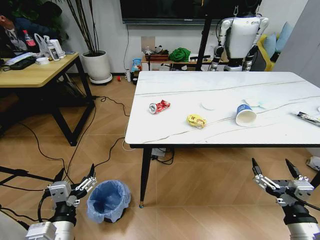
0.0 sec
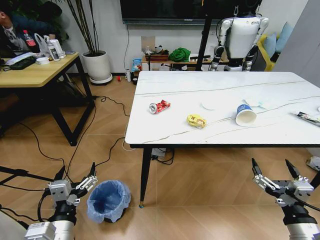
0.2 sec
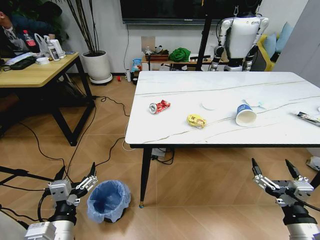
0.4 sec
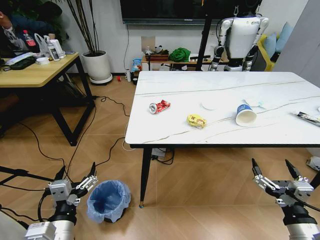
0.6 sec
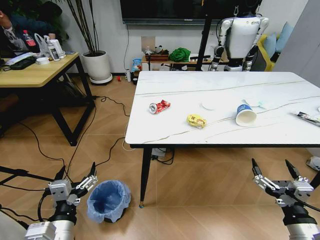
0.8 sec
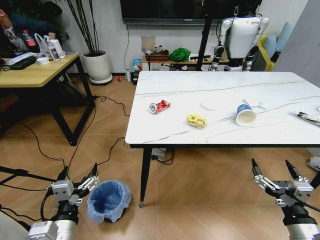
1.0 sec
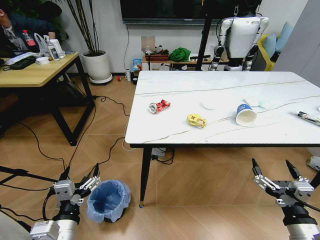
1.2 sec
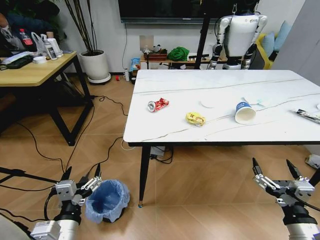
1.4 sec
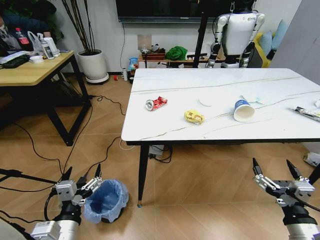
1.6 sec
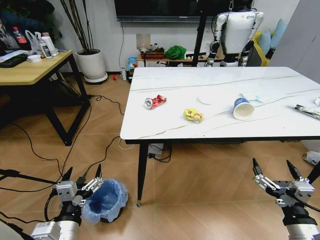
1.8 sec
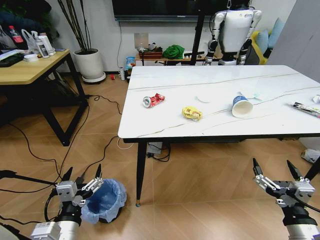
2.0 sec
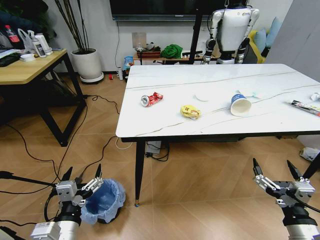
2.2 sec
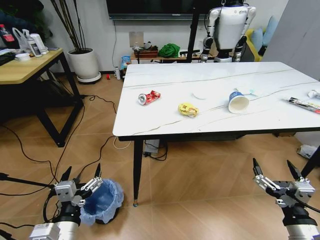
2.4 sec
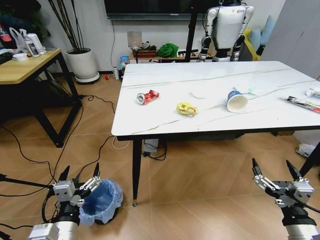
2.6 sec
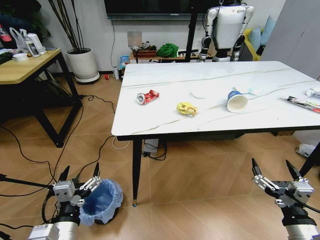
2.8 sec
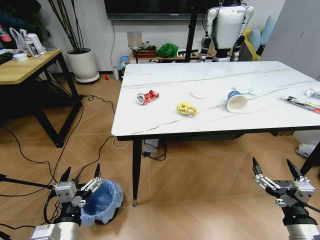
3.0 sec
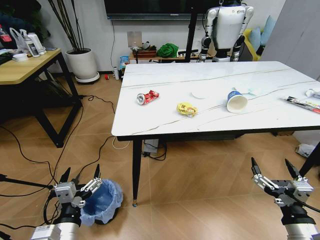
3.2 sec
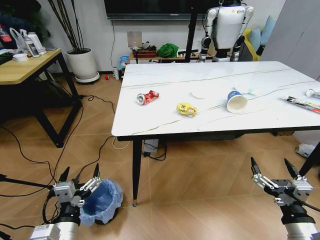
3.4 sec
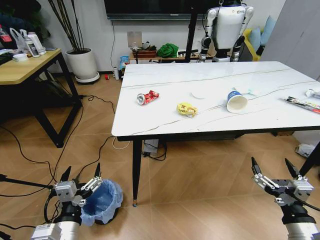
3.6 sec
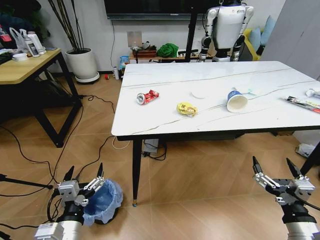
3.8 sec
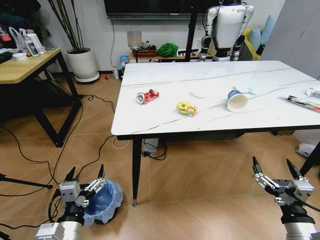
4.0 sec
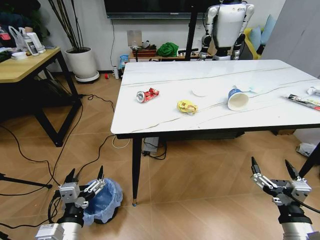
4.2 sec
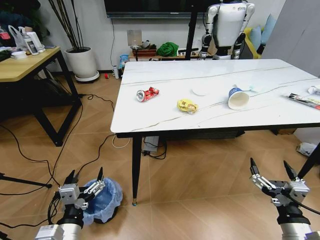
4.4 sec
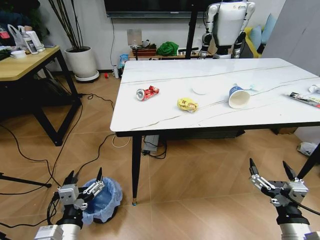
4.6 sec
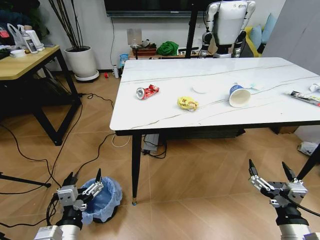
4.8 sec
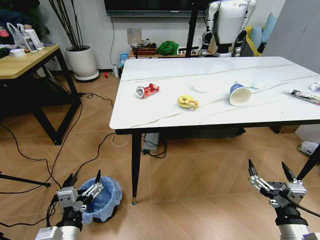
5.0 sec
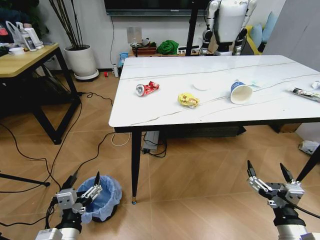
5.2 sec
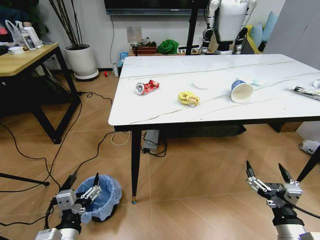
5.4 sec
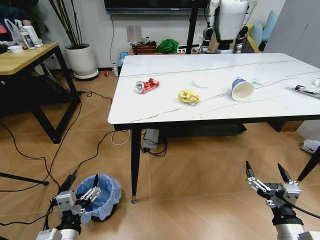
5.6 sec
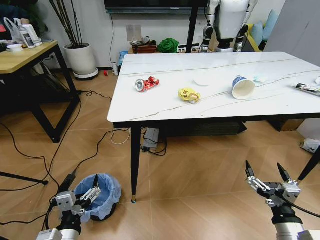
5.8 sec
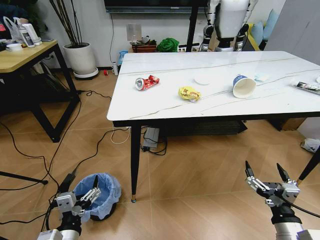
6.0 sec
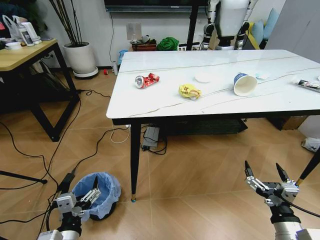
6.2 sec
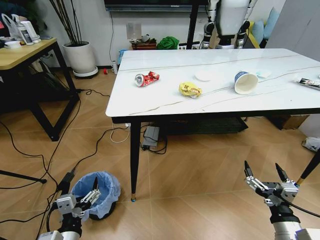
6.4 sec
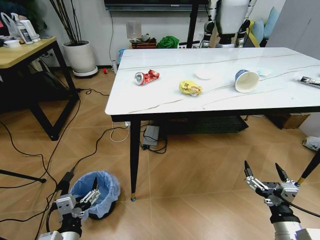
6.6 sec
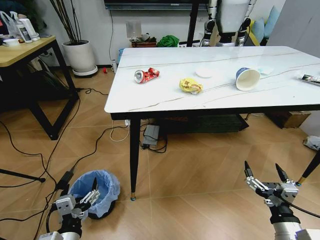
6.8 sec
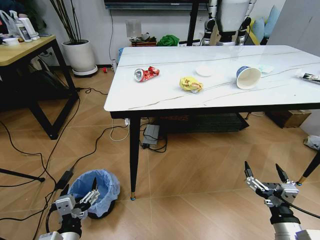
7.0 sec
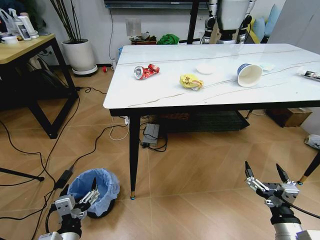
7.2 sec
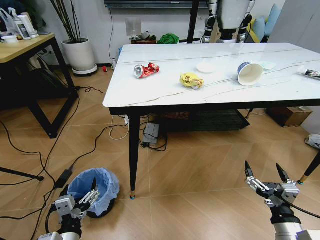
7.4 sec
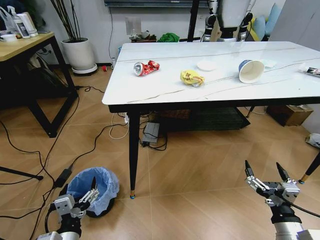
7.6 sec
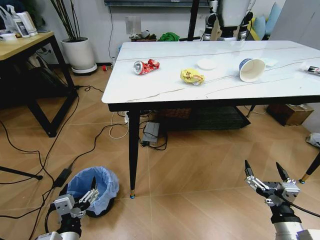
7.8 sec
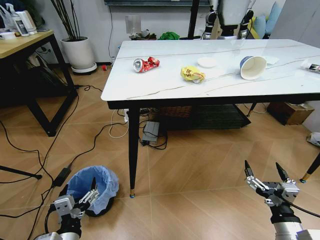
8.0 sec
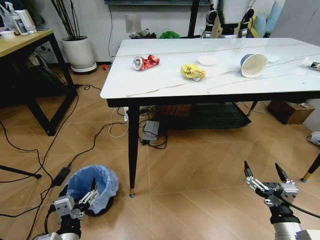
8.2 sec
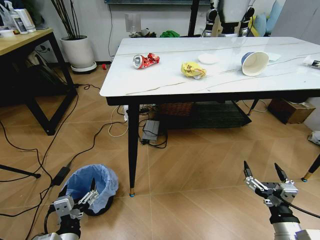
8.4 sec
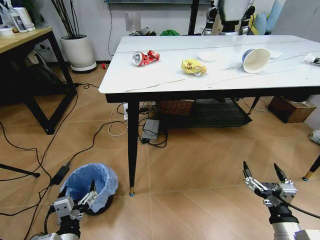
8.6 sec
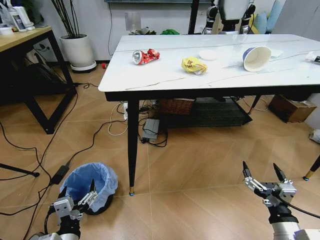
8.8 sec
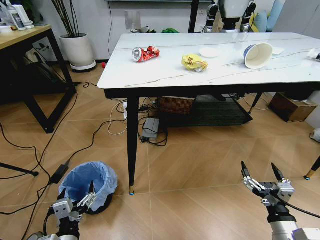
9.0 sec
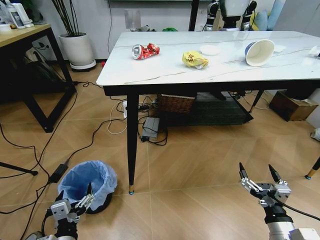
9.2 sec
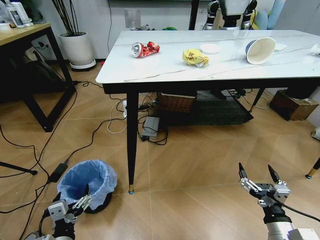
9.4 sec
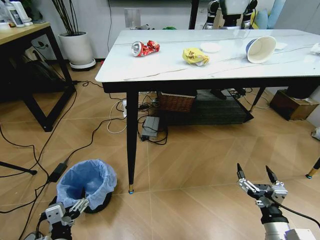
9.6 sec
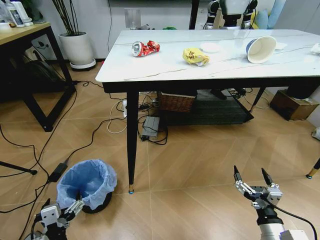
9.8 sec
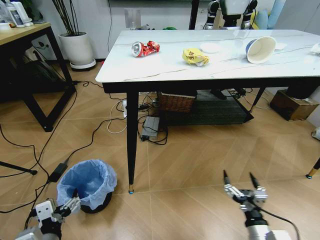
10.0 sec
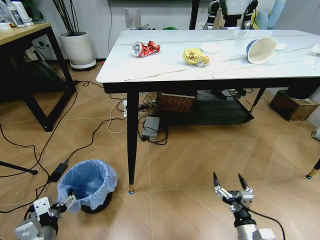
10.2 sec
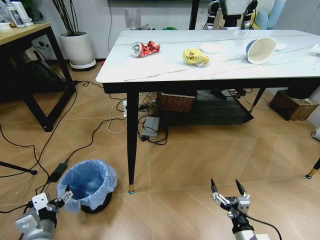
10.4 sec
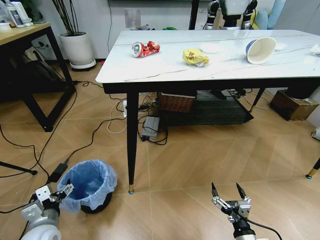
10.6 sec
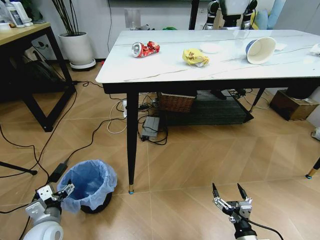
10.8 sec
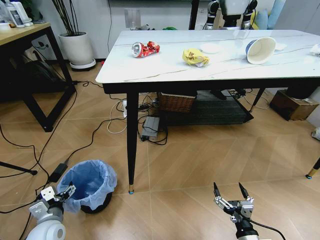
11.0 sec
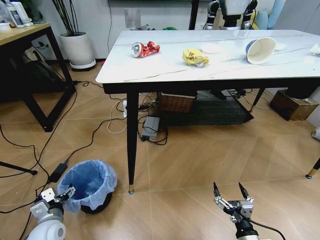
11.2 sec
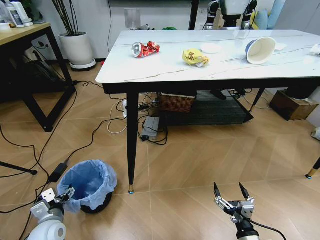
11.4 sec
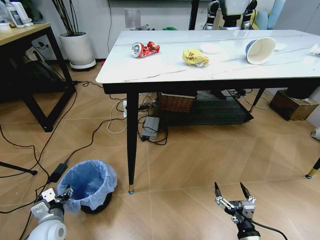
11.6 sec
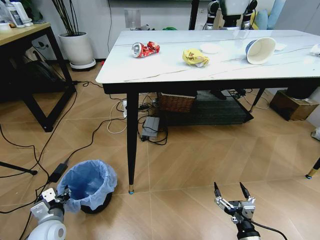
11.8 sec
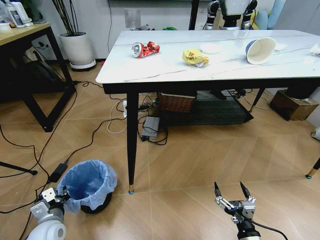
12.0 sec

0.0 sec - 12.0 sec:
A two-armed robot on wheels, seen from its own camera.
Task of the whole recording: Pick up the trash bin and place the trash from the table into it.
3.0 sec - 4.4 sec: Both grippers stay about where they are.
9.0 sec - 10.4 sec: The right gripper goes about 10 cm downward and to the left; the left gripper moves to the left, approximately 5 cm.
10.4 sec - 12.0 sec: The left gripper heads forward and downward, covering roughly 10 cm, and closes up.

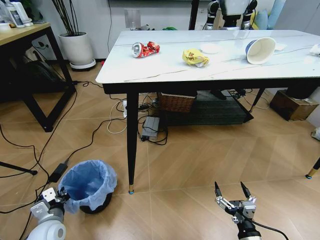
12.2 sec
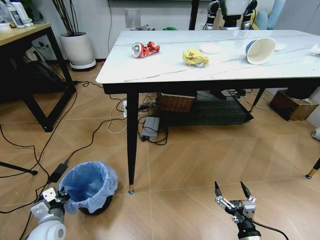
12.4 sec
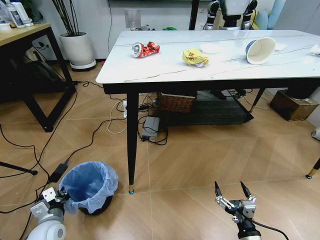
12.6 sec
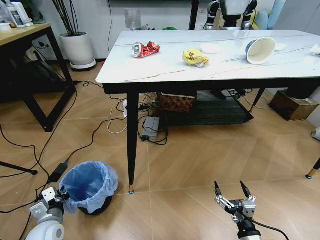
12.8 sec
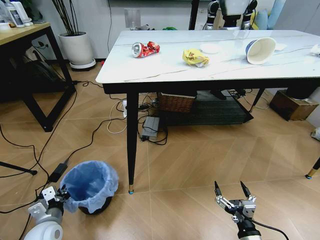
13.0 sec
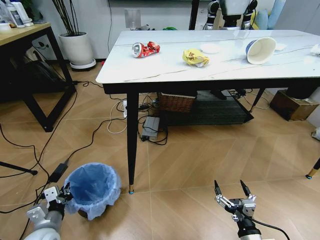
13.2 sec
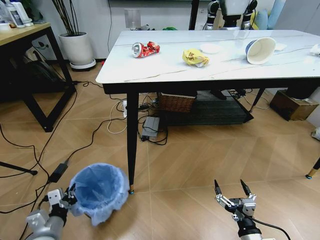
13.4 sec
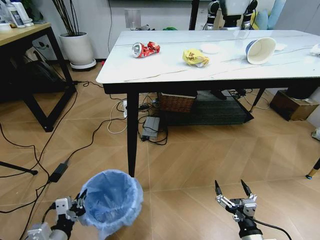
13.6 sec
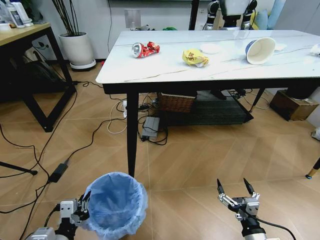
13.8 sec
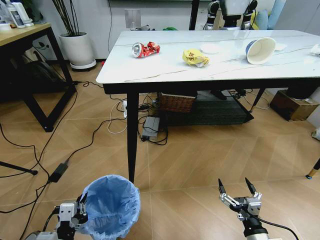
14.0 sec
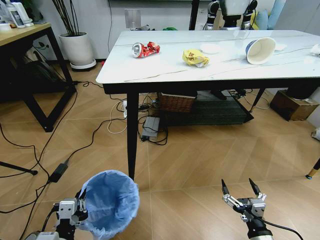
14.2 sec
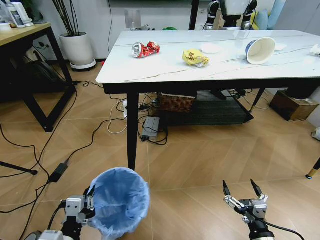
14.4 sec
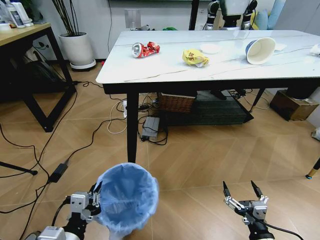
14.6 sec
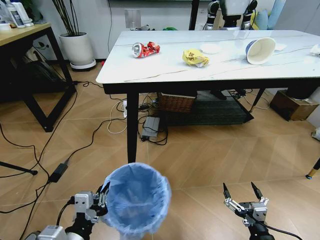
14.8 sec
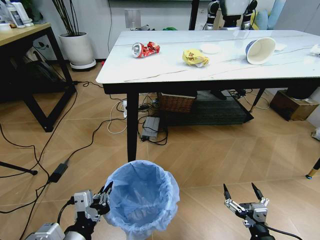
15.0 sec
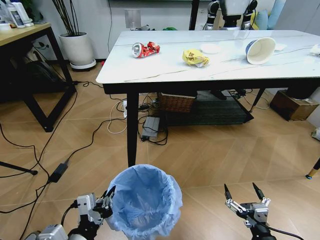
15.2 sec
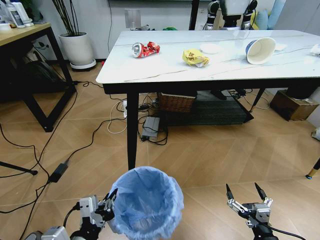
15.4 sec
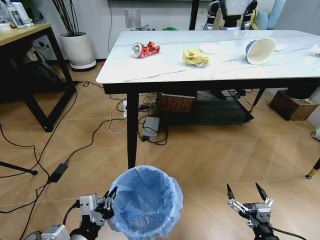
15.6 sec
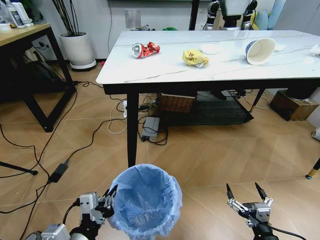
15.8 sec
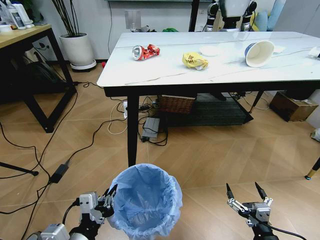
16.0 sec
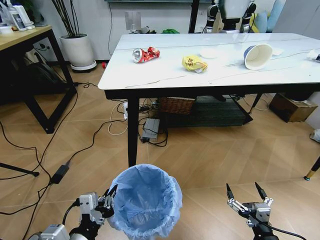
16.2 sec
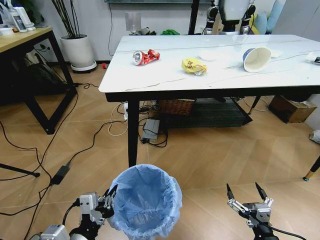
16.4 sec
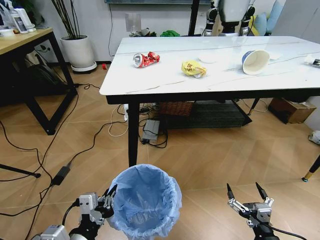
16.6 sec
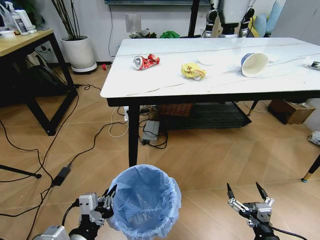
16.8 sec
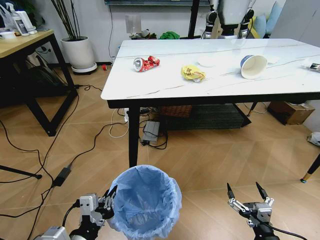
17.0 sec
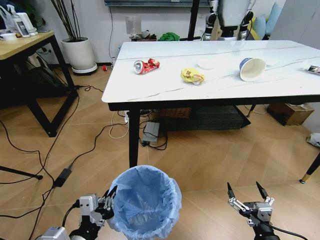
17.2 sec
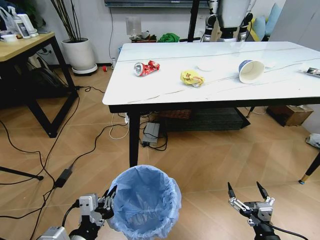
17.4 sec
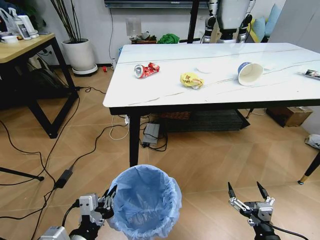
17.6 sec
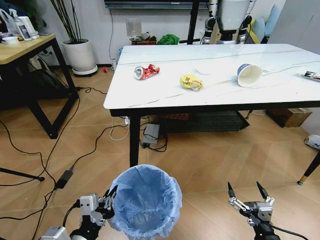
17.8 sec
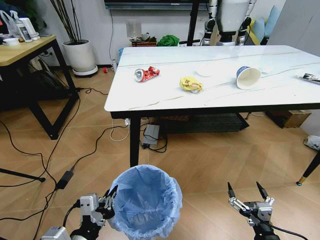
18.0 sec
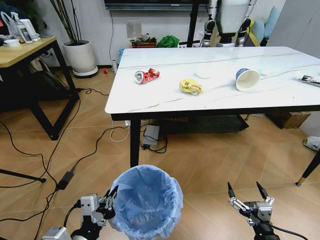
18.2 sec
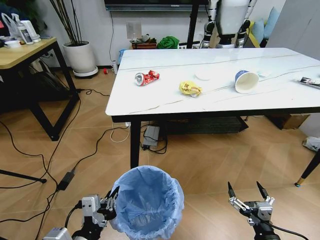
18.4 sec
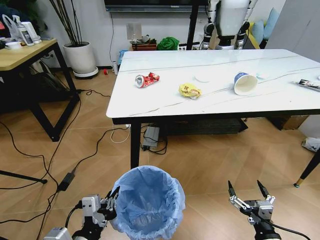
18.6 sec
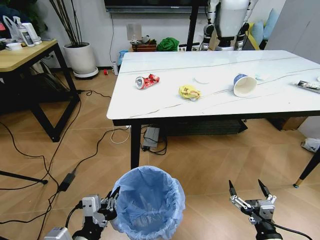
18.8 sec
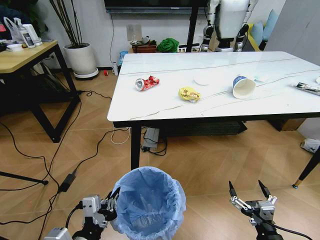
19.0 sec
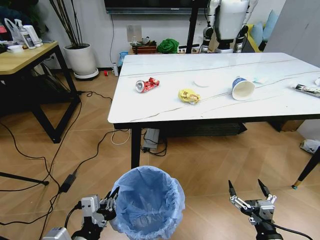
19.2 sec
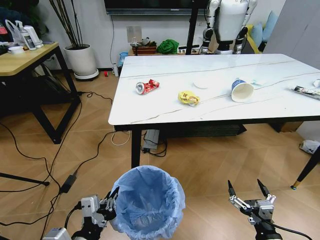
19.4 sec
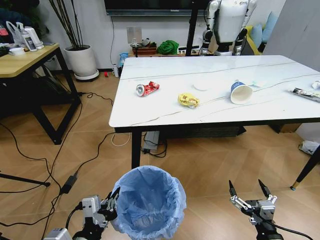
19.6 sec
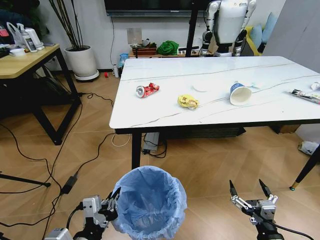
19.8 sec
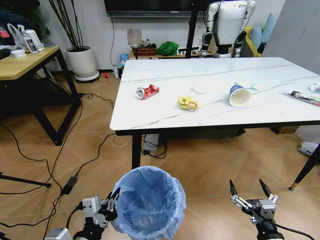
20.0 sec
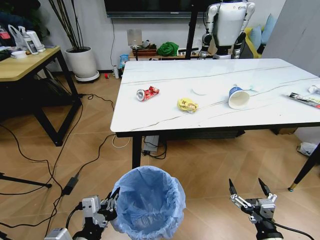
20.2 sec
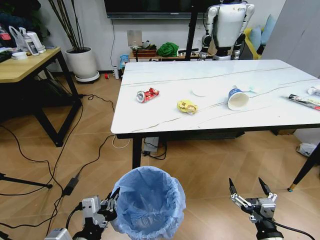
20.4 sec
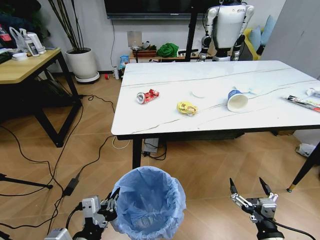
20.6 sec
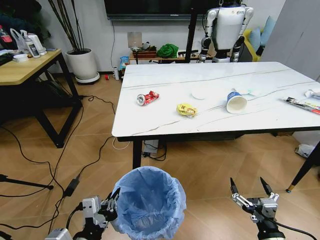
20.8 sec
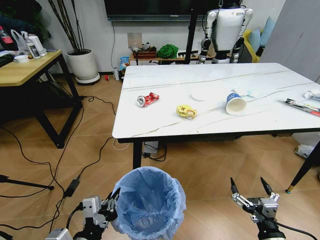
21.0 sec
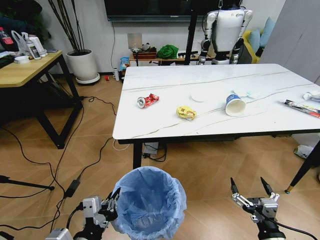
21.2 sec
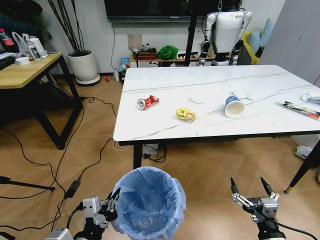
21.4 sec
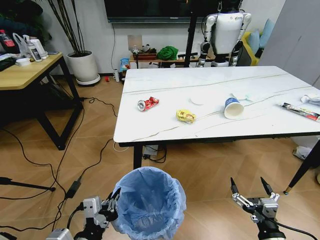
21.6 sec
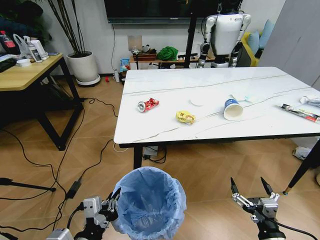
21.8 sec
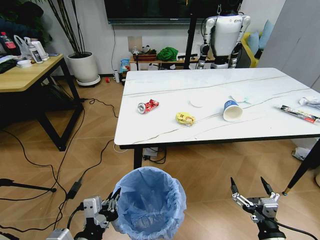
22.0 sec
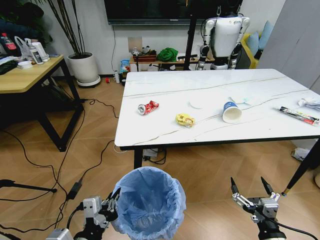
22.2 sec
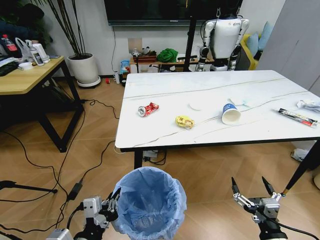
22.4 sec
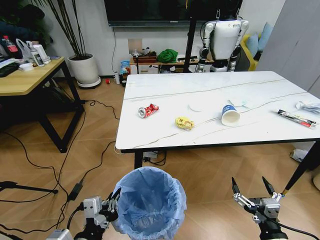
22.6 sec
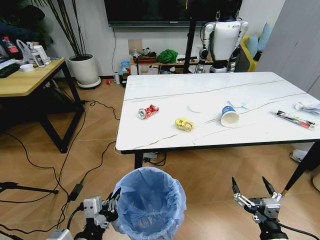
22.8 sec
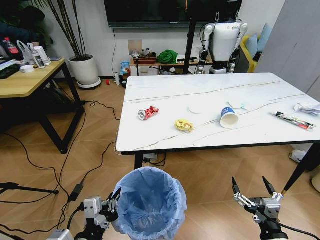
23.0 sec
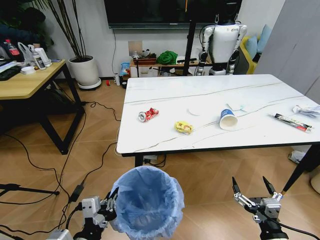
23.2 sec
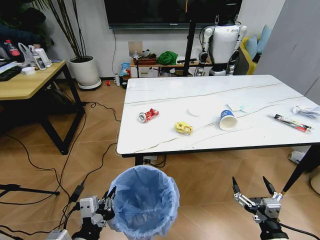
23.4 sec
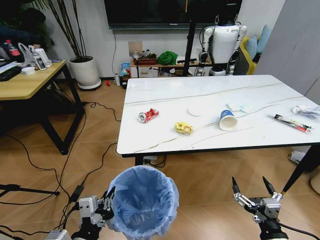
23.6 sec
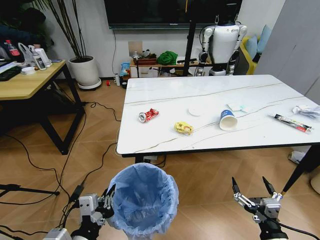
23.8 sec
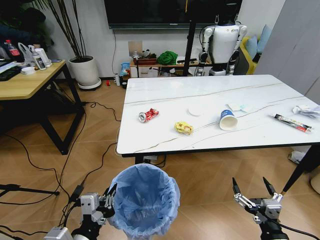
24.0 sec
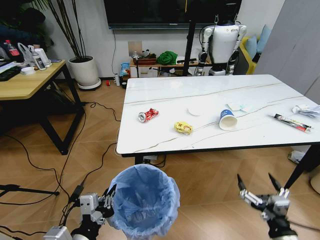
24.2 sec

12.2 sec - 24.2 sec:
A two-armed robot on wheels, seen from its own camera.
Task of the whole recording: Pick up the trash bin and place the trash from the table into it.
12.2 sec - 13.8 sec: The left gripper moves backward, upward and to the right, about 15 cm.
13.8 sec - 15.2 sec: The left gripper goes some 10 cm upward and to the right.
